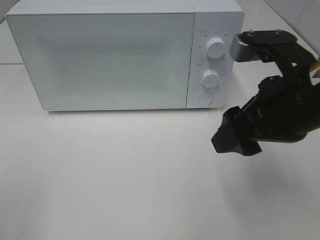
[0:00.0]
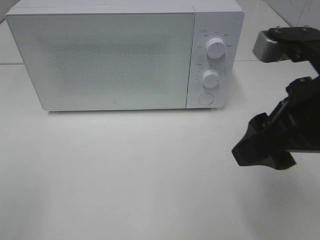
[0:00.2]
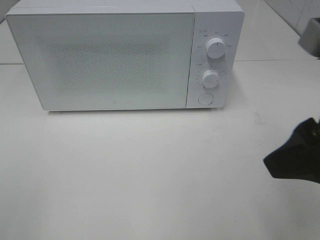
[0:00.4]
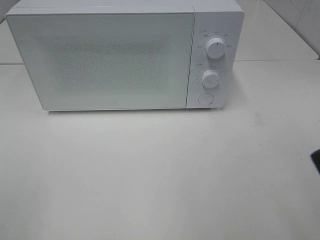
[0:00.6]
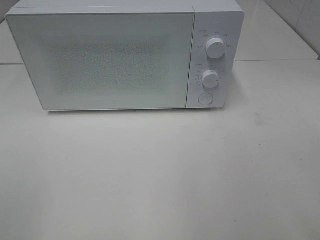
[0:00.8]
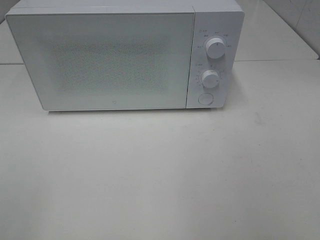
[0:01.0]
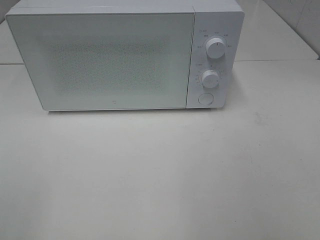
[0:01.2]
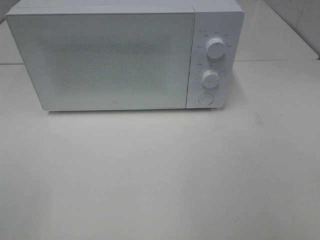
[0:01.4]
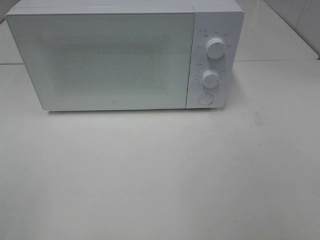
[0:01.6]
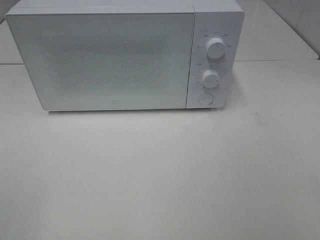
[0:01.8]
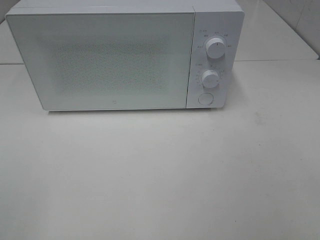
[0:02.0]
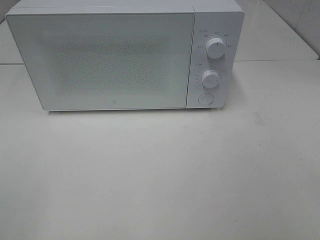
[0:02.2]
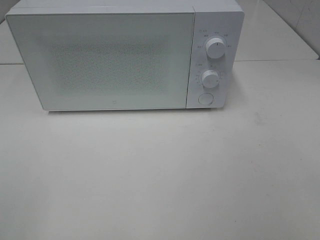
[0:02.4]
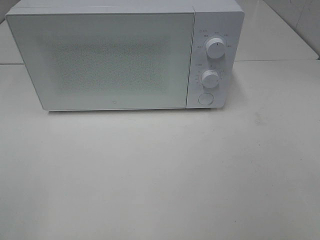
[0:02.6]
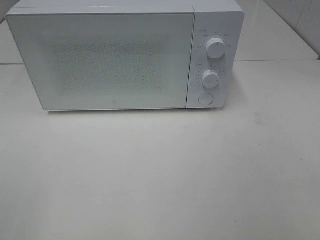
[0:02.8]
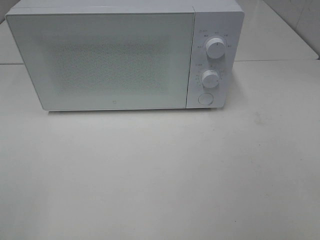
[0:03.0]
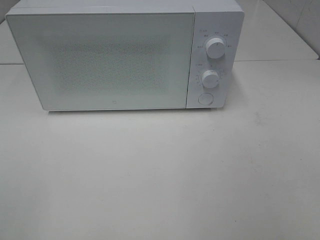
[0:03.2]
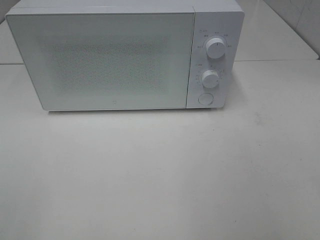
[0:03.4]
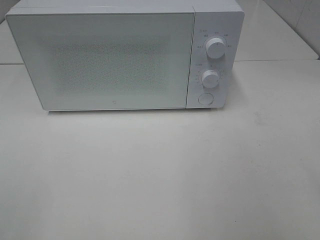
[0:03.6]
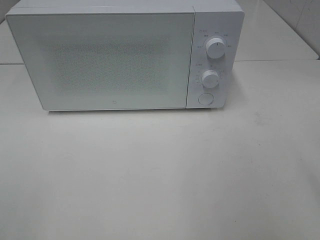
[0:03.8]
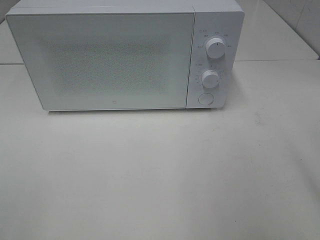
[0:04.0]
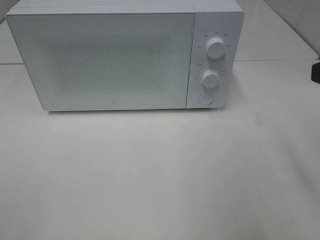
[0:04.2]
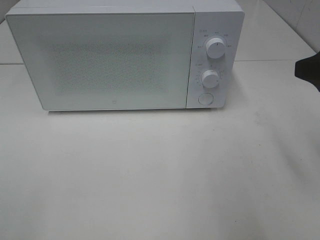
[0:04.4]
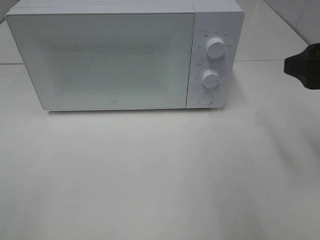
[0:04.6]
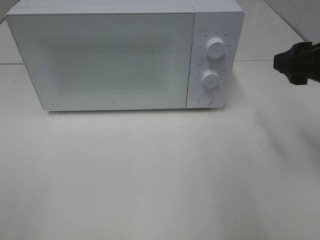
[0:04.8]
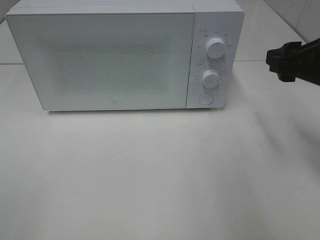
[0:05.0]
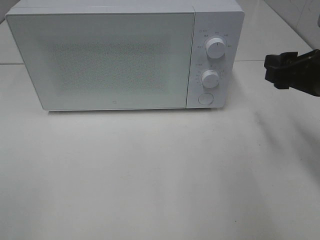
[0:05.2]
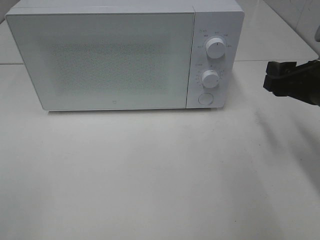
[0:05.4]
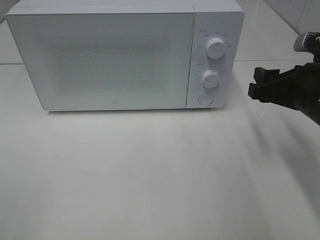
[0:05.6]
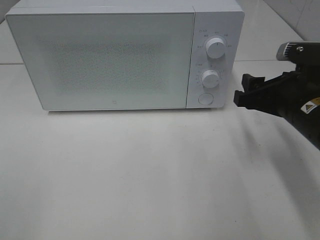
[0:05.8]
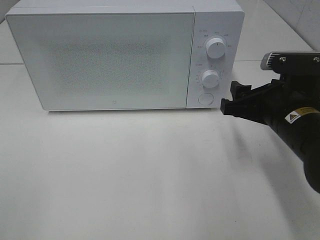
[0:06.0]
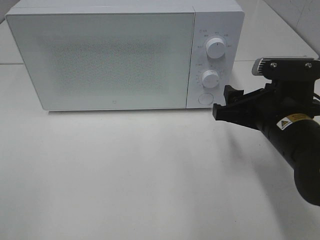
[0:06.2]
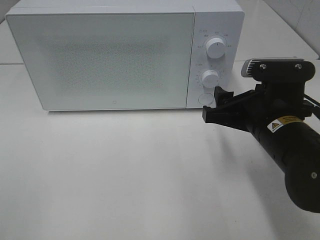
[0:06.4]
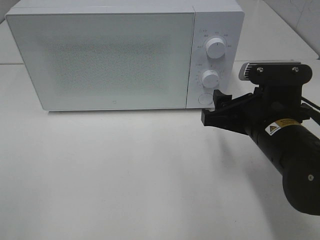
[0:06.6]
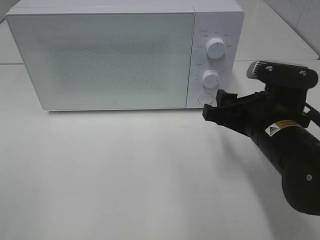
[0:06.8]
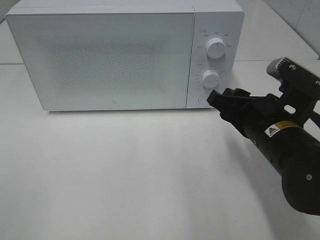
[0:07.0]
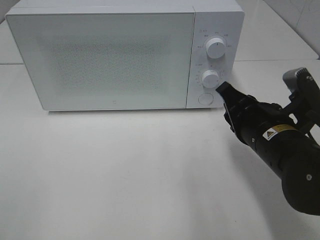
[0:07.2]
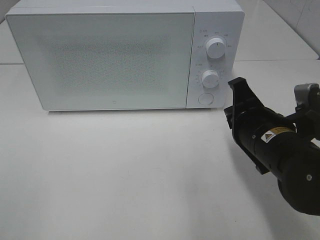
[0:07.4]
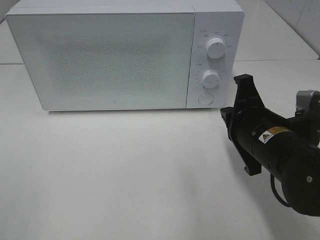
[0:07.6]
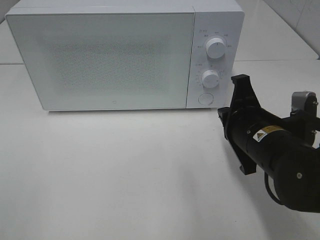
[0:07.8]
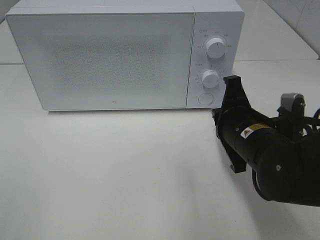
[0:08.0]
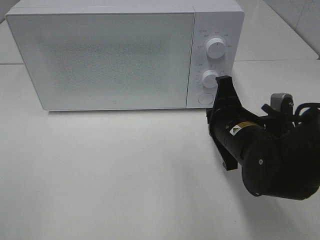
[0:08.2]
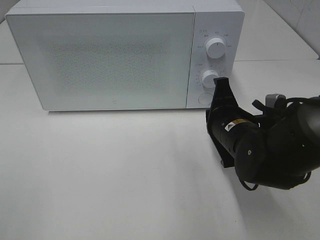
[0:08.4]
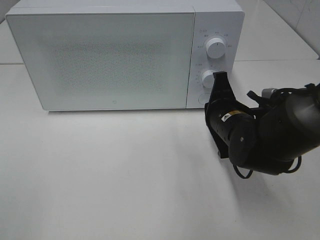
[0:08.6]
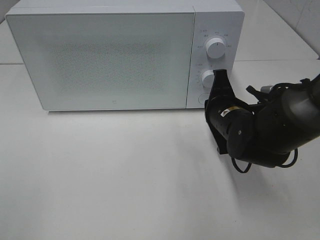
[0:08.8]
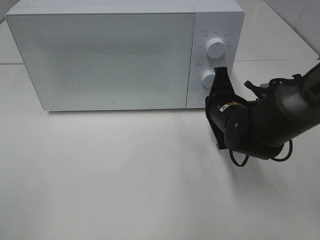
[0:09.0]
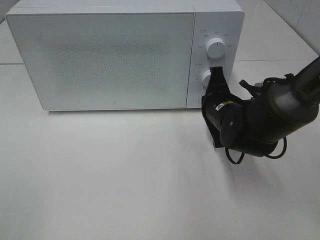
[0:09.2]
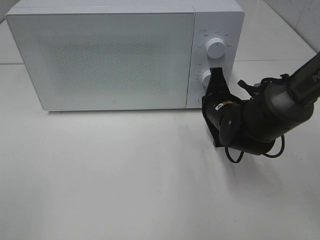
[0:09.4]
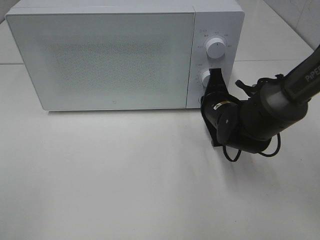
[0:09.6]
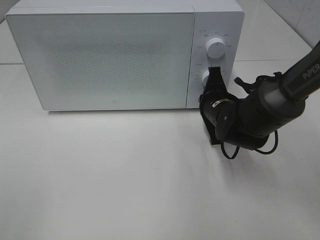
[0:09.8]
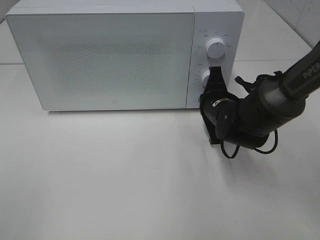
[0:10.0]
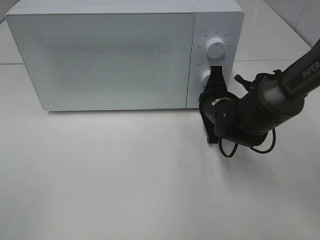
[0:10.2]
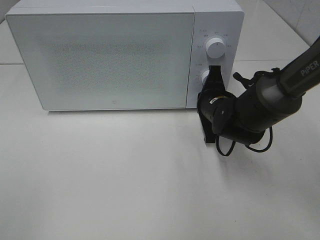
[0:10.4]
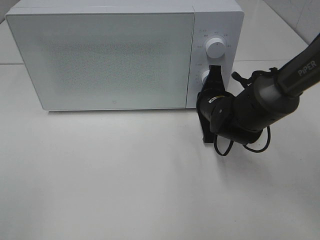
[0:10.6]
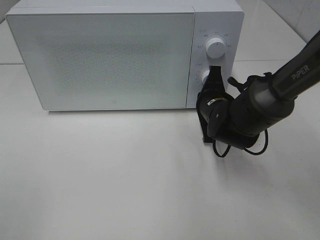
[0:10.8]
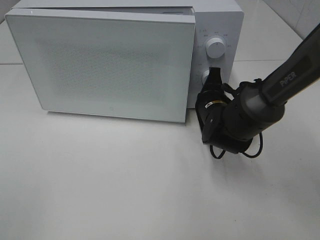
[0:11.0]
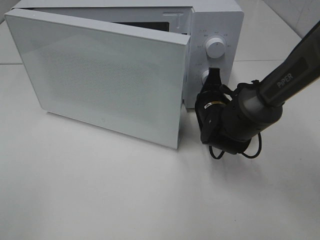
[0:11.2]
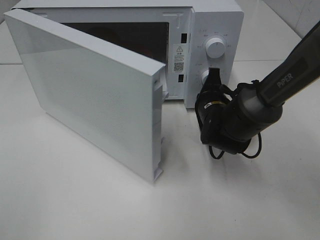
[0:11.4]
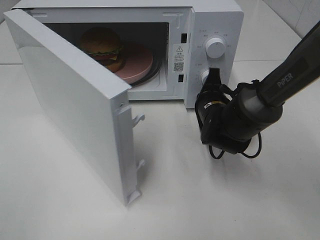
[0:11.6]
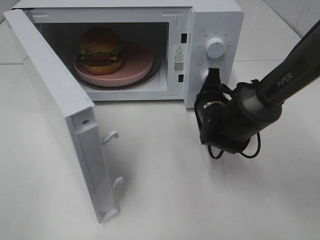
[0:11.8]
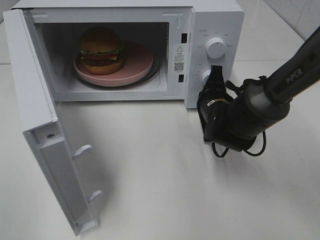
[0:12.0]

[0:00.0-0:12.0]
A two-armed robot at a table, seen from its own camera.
Task of the whole recording: Heat the burger.
0:00.0 to 0:01.6: The right gripper shifts some 25 cm backward and to the right.
0:03.0 to 0:04.4: The right gripper goes about 20 cm forward.
0:04.4 to 0:06.0: The right gripper shifts approximately 15 cm downward and to the left.
0:06.0 to 0:07.6: The right gripper closes its fingers.
0:07.6 to 0:09.0: The right gripper is displaced forward by some 10 cm.
0:09.0 to 0:10.4: The grippers stay close to where they were, moving slightly.

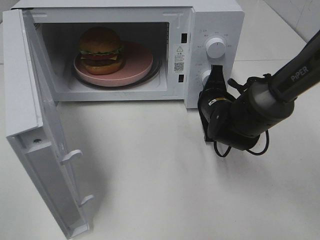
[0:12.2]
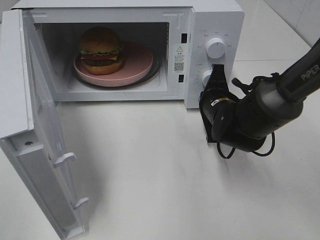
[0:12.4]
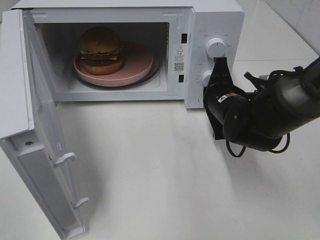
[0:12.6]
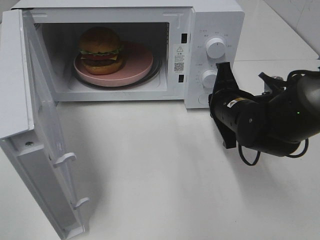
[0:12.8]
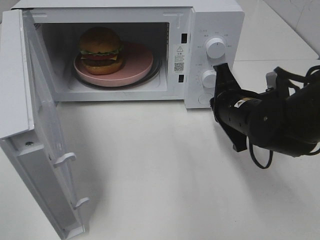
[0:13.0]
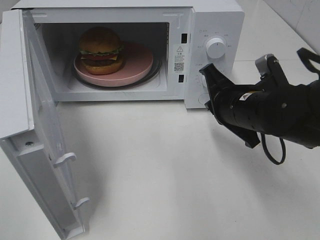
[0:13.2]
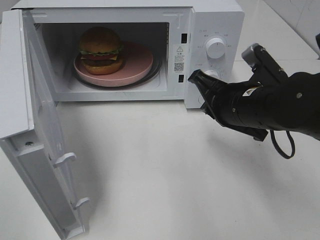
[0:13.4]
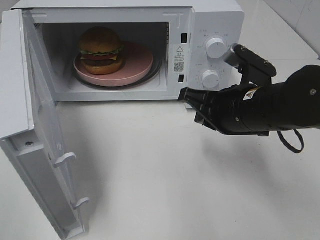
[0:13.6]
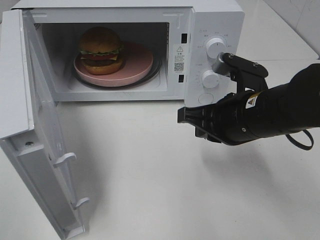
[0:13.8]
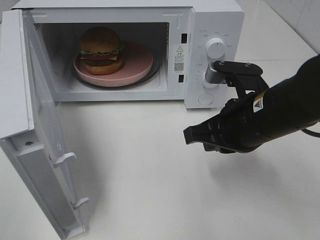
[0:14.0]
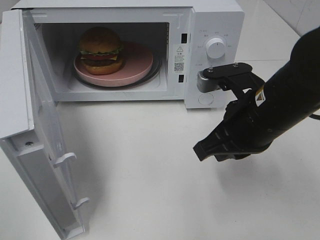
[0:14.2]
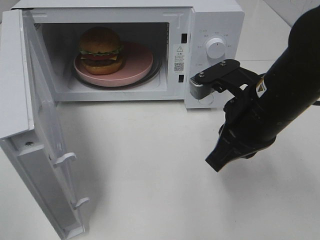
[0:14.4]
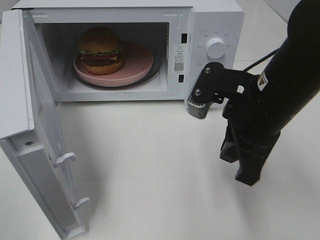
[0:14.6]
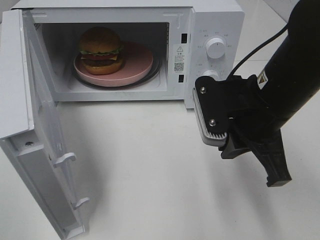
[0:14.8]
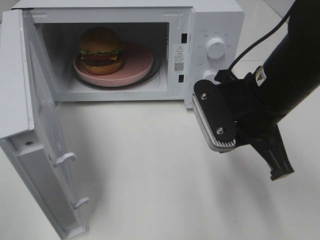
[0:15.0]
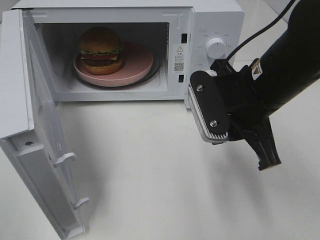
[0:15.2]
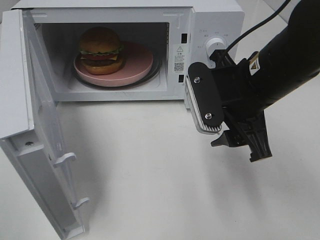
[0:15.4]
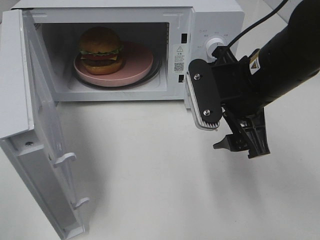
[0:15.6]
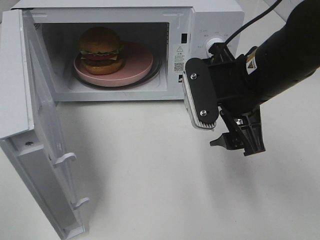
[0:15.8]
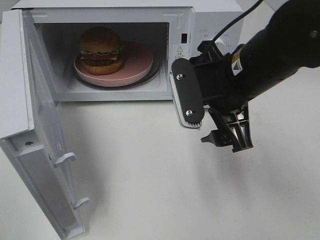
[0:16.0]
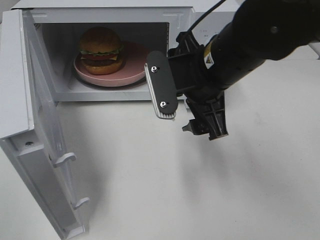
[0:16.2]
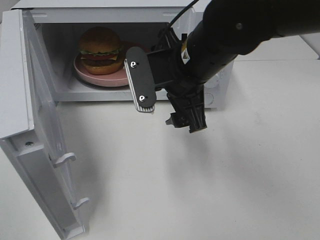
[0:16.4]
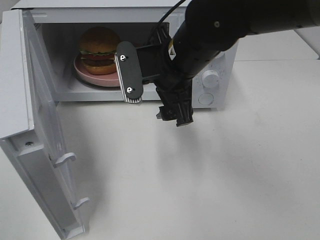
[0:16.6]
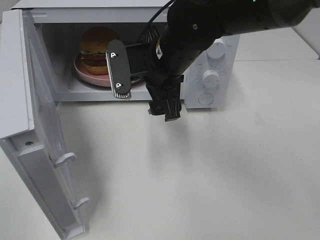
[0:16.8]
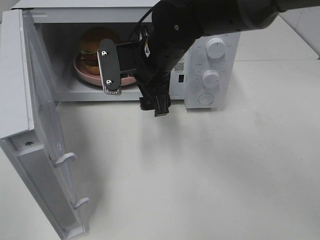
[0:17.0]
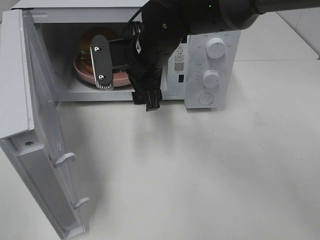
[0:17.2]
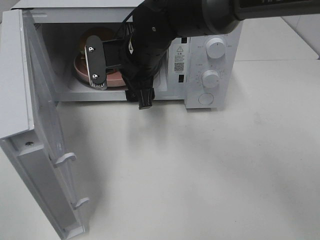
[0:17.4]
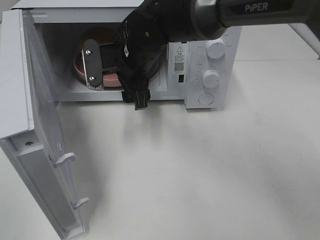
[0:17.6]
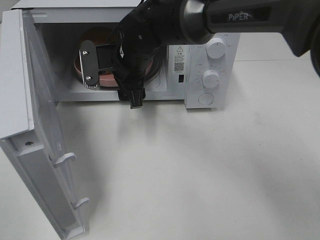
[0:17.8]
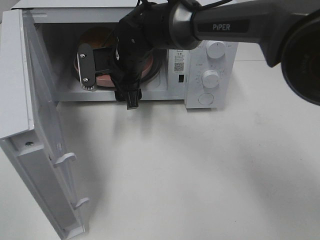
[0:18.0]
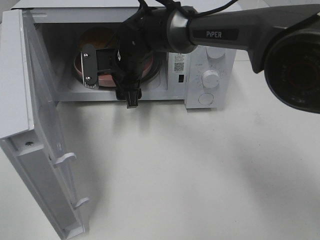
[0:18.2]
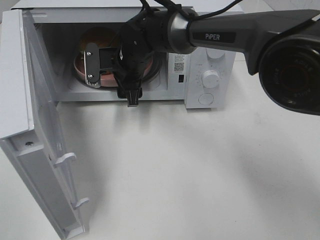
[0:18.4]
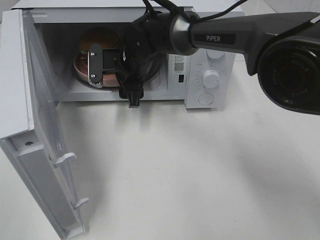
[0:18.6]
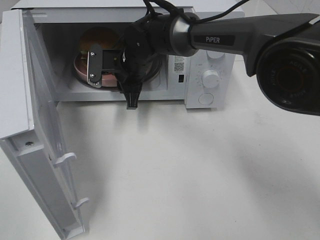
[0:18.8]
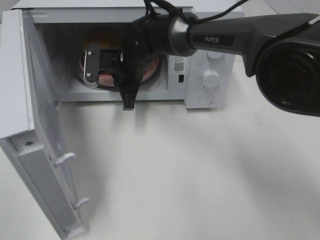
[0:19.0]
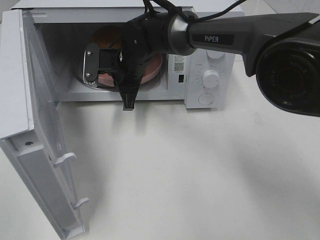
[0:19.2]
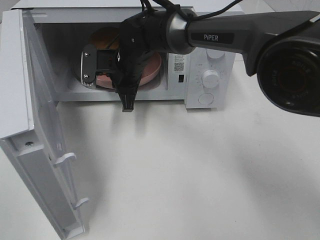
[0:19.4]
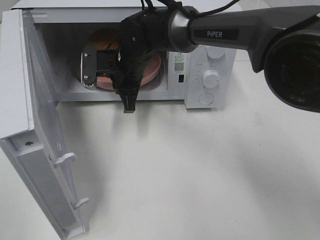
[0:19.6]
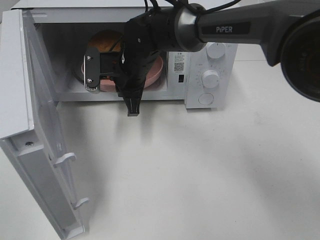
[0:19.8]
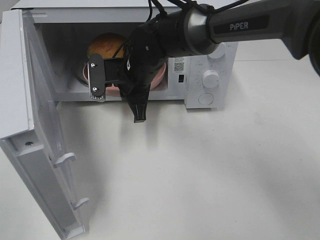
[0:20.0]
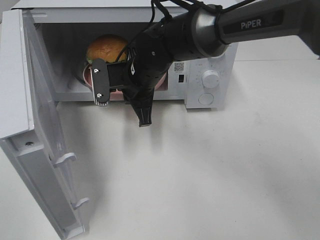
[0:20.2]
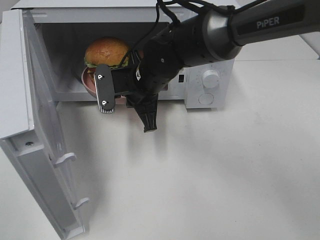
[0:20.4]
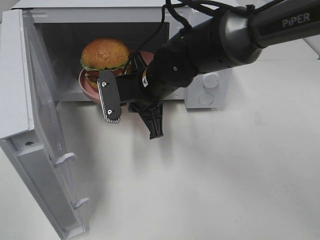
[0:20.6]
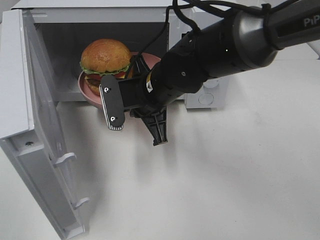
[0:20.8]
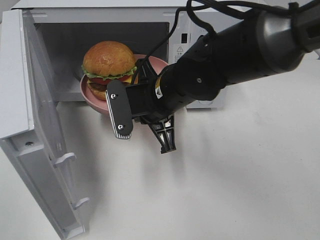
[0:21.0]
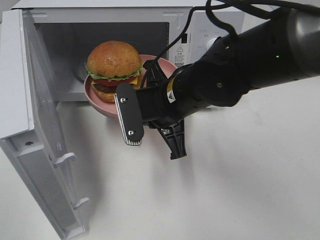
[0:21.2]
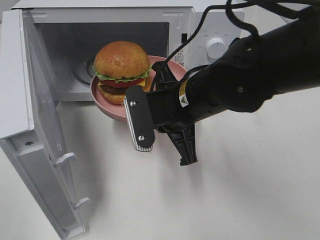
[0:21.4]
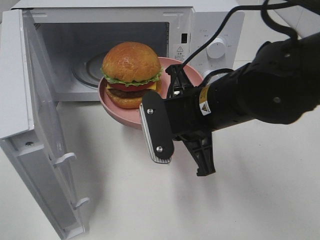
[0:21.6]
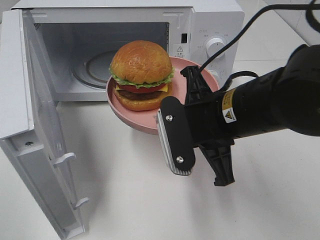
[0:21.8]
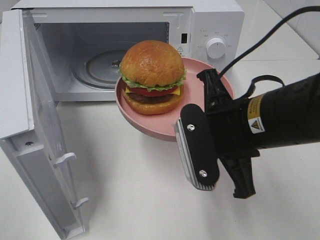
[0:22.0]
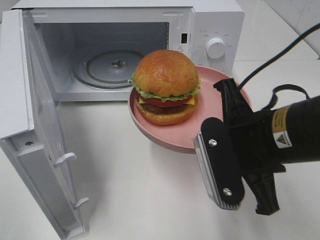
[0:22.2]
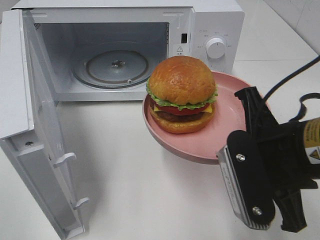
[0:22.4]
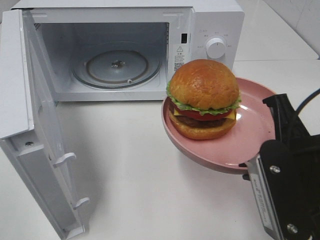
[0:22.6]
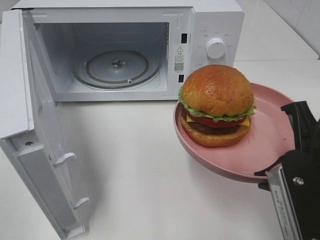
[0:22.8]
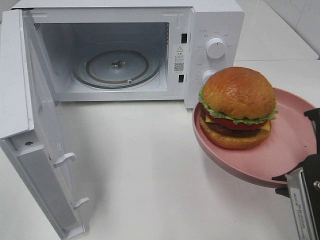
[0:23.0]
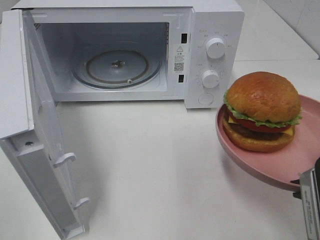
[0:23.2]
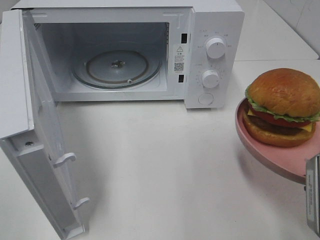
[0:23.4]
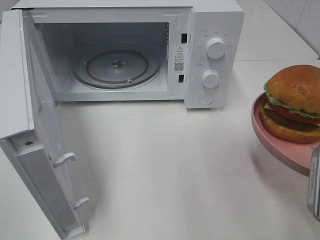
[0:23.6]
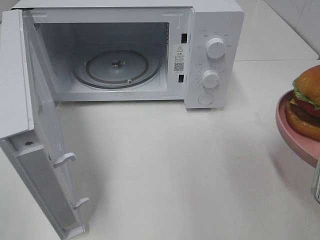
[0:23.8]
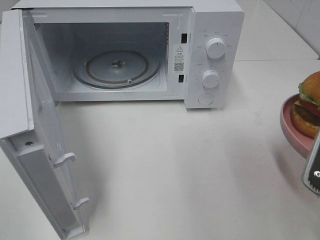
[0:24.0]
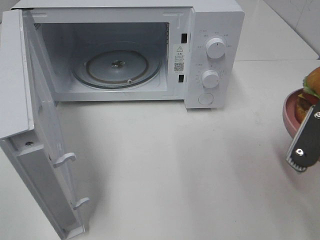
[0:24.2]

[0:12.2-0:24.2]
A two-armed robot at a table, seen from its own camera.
Task of the whole recording: Heat the burger.
Step, 0:12.6 to 0:19.0: Right hand: grab the plate with the hamburger.
0:12.2 to 0:13.8: The right gripper moves backward and upward, about 15 cm.
0:13.8 to 0:15.2: The right gripper opens its fingers.
0:15.2 to 0:16.6: The right gripper travels to the left and forward by about 10 cm, and opens.
0:16.6 to 0:18.2: The right gripper is displaced forward, to the left and downward by roughly 15 cm.
0:18.2 to 0:19.8: The right gripper closes.
0:19.8 to 0:21.2: The right gripper is displaced backward and to the right by about 15 cm.
0:21.2 to 0:22.6: The right gripper travels backward and to the right by roughly 20 cm.
